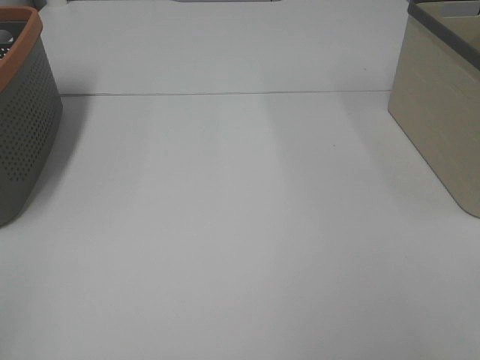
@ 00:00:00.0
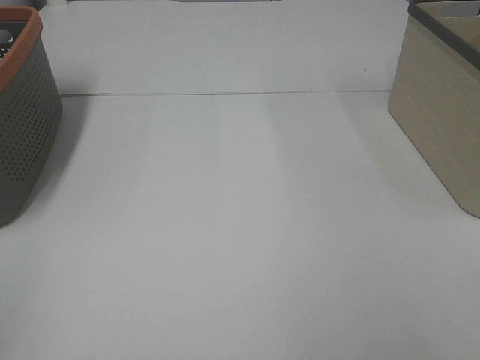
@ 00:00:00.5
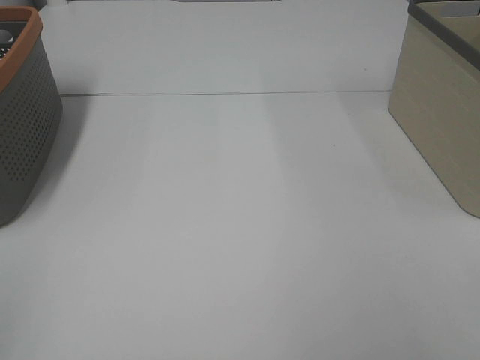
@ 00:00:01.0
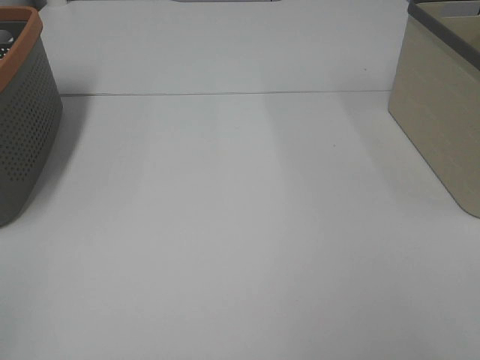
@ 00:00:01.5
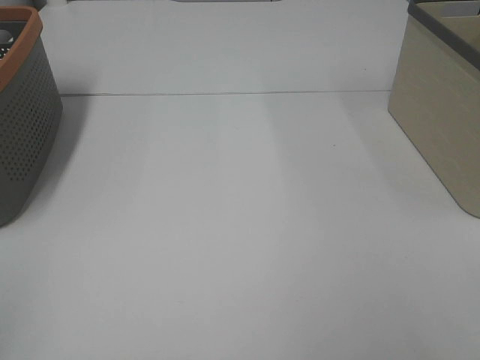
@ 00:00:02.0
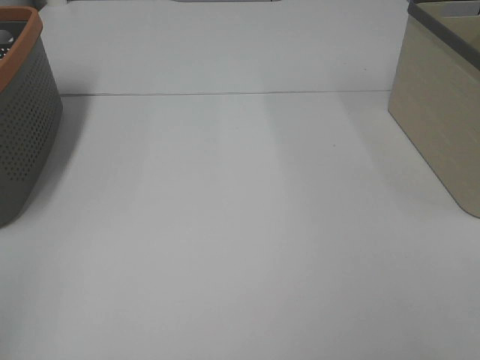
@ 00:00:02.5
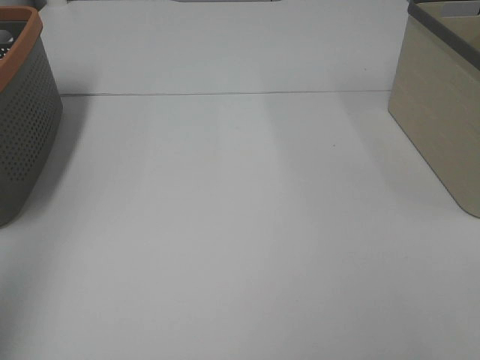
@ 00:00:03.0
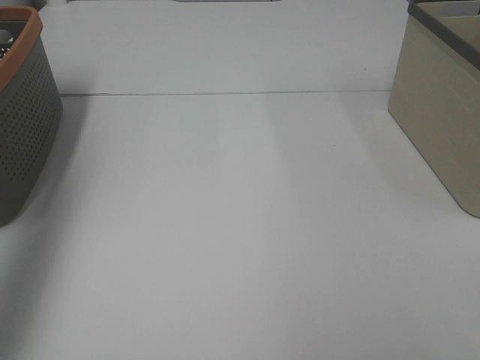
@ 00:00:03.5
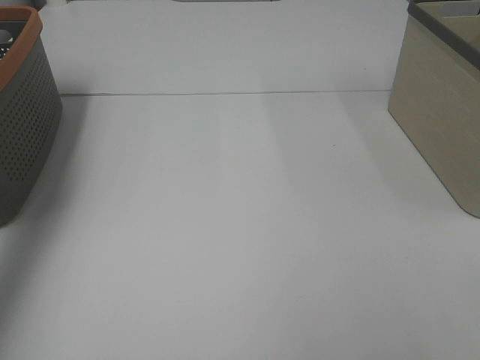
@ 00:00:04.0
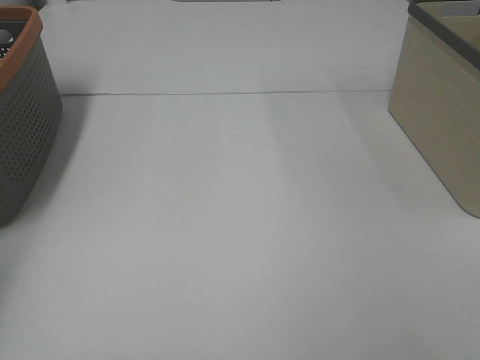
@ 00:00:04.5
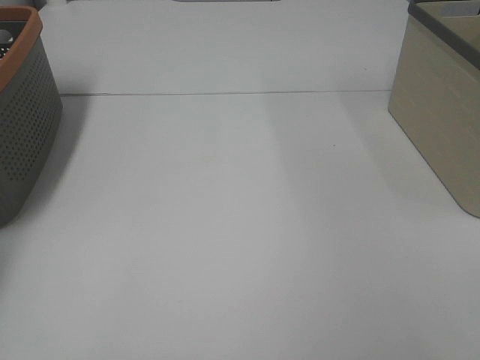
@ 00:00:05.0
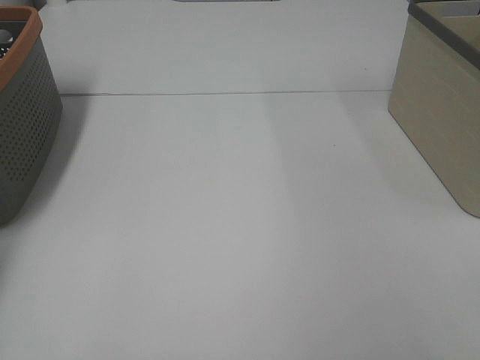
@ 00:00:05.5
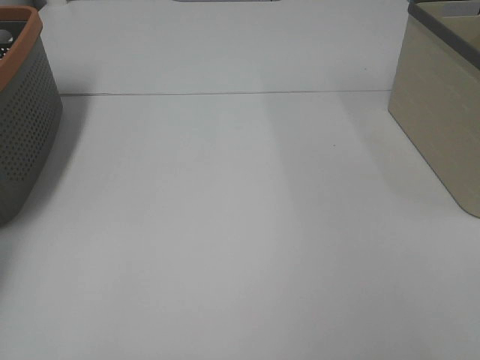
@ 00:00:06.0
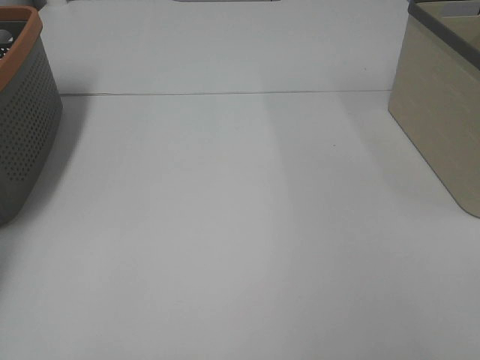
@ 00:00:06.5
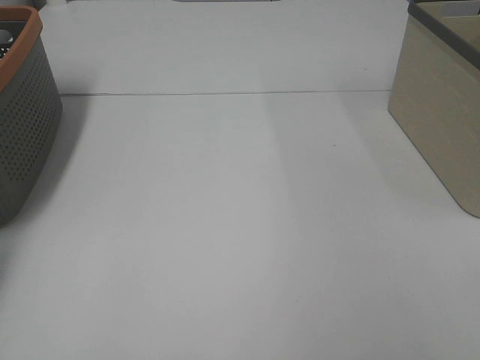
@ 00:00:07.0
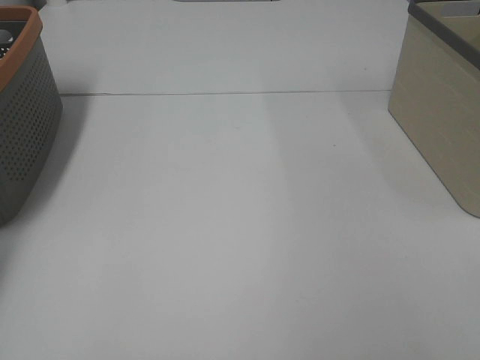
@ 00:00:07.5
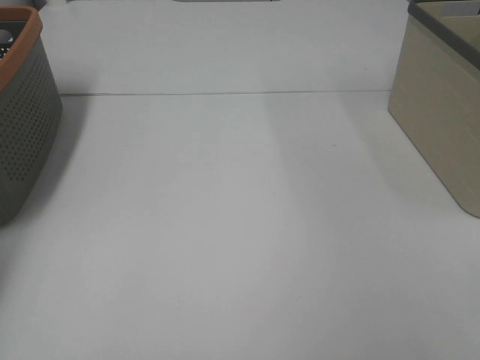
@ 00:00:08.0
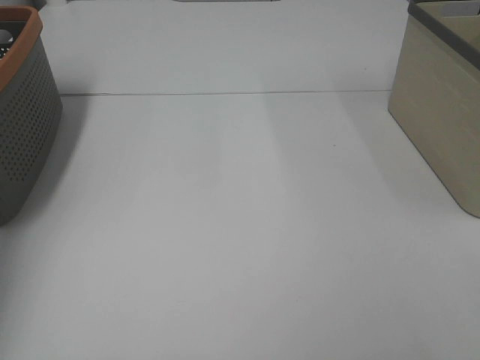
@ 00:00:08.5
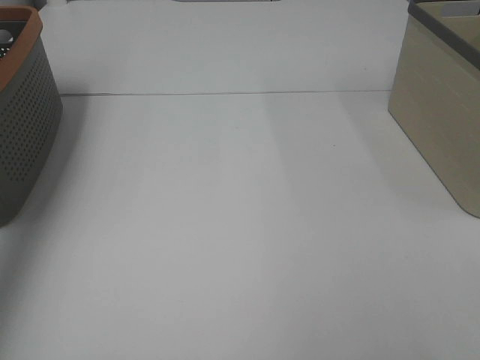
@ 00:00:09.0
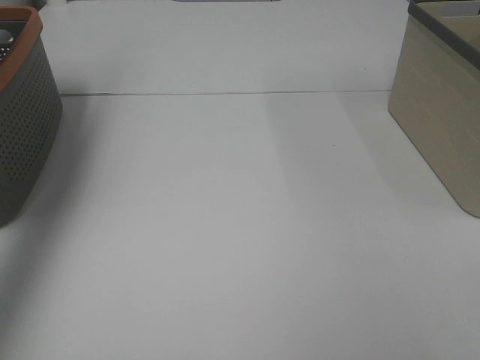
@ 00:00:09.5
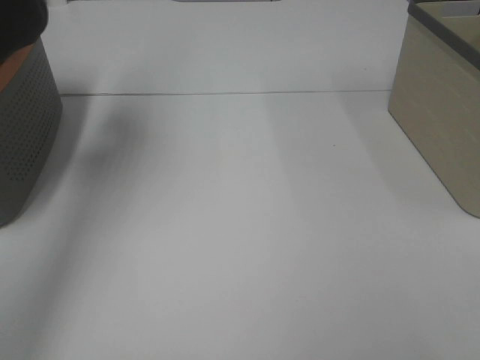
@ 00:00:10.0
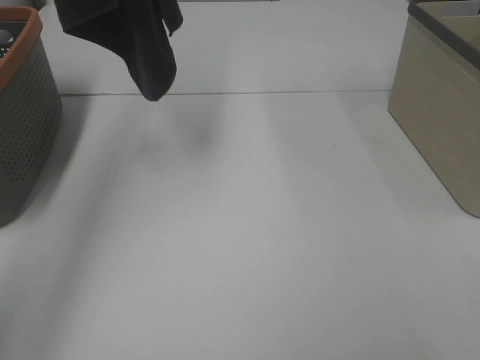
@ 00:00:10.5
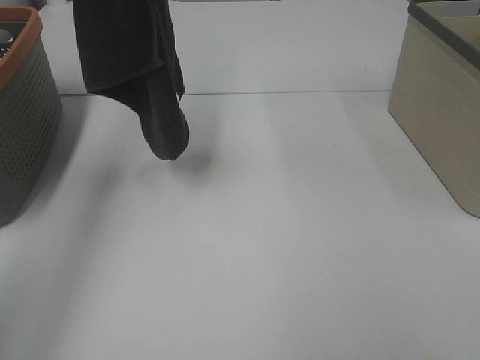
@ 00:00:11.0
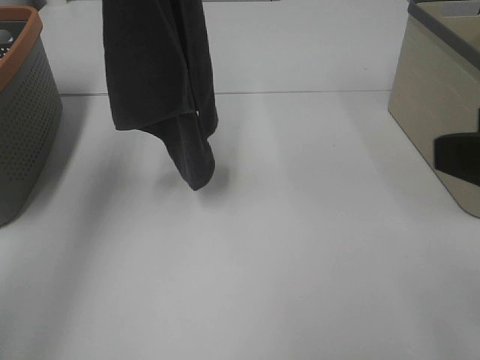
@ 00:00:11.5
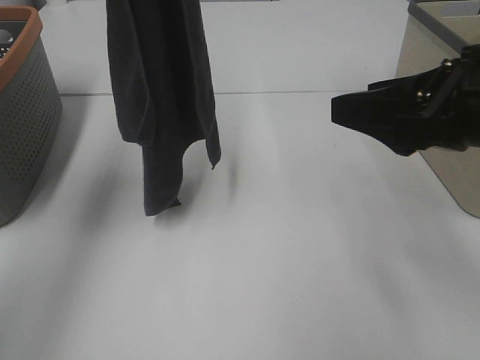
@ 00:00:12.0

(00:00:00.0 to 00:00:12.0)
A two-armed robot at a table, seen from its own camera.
Task of the whole recording: Remove the towel and place it.
00:00:00.0 - 00:00:02.0: Both grippers stay about where they are.
00:00:02.0 - 00:00:04.0: The left gripper heads forward, covering approximately 35 cm.
00:00:04.0 - 00:00:06.0: The left gripper heads downward, forward and to the left, covering roughly 25 cm.
00:00:08.0 - 00:00:10.0: The left gripper heads upward, to the right and backward, covering approximately 40 cm.
00:00:10.0 - 00:00:12.0: The right gripper is displaced forward and to the left by approximately 20 cm; the left gripper heads downward and to the right, covering about 15 cm.

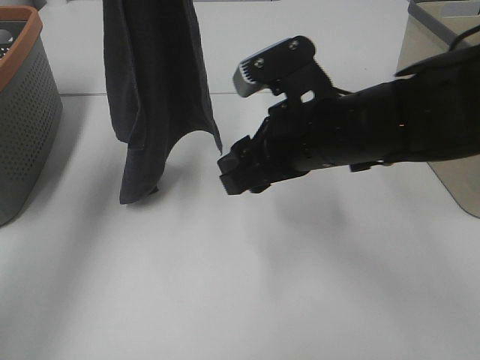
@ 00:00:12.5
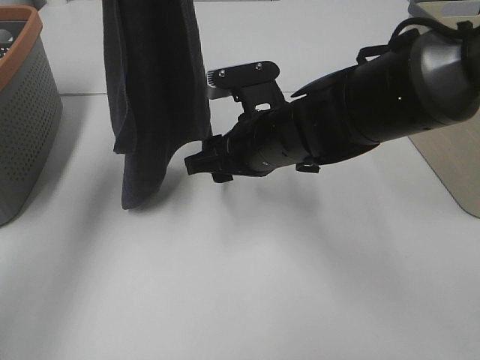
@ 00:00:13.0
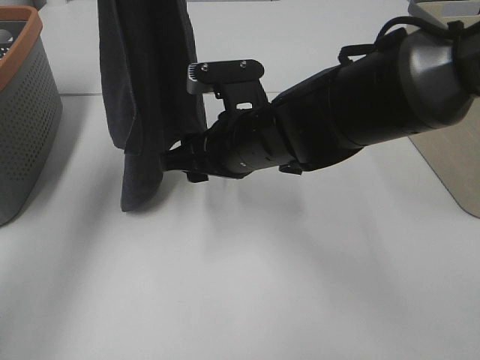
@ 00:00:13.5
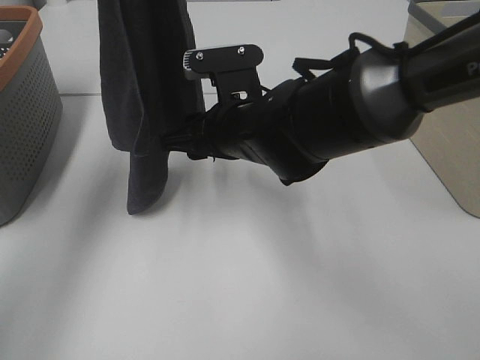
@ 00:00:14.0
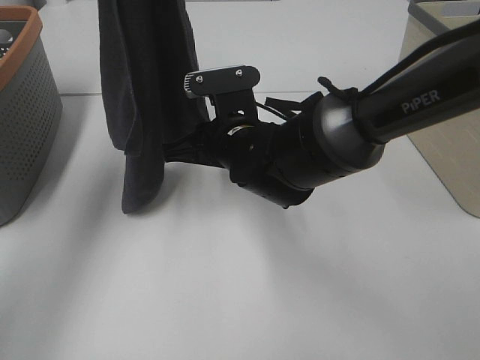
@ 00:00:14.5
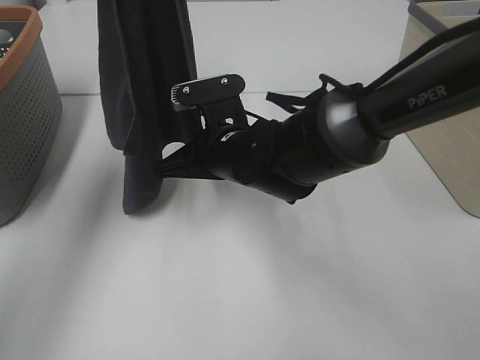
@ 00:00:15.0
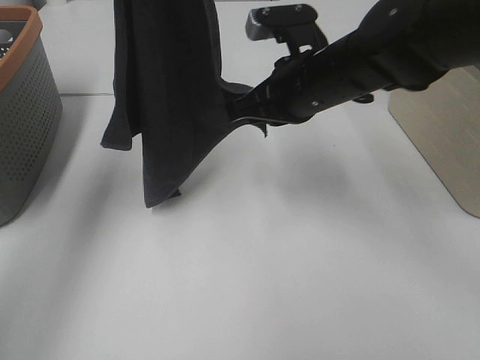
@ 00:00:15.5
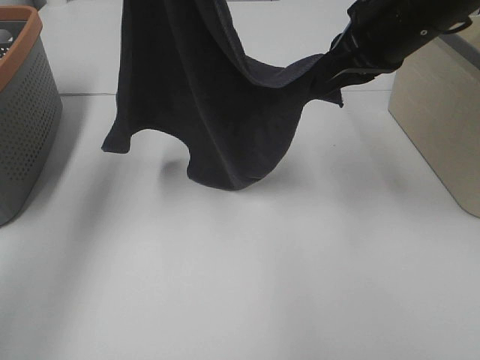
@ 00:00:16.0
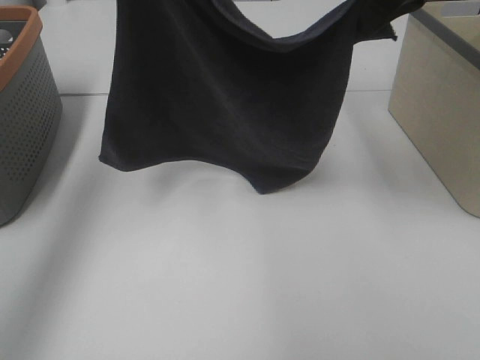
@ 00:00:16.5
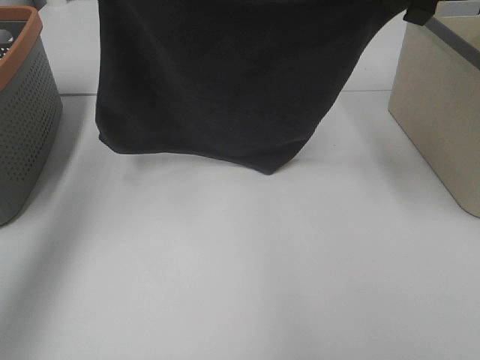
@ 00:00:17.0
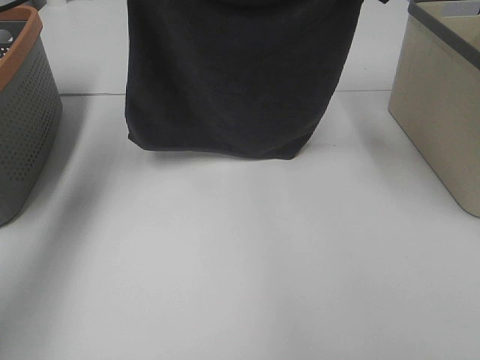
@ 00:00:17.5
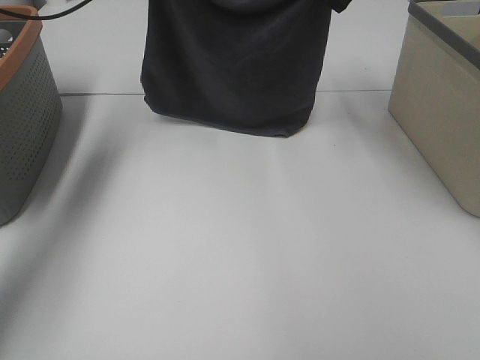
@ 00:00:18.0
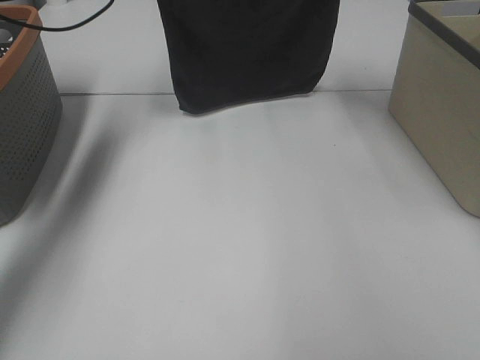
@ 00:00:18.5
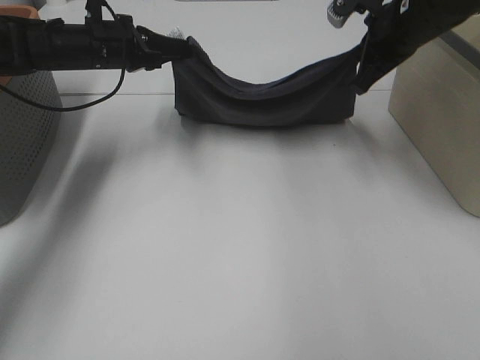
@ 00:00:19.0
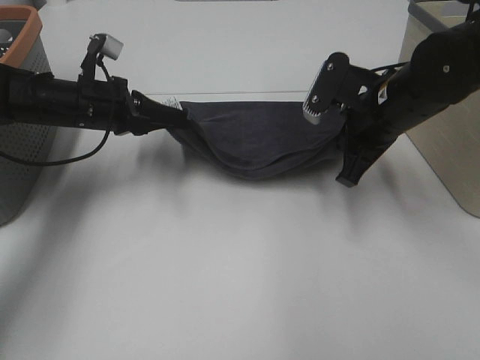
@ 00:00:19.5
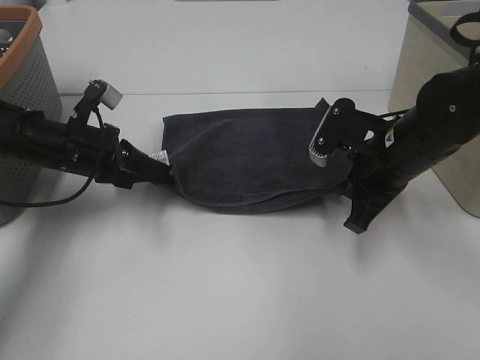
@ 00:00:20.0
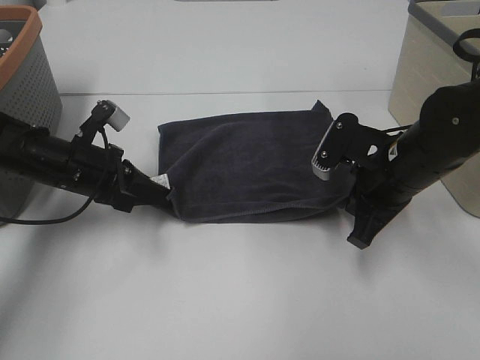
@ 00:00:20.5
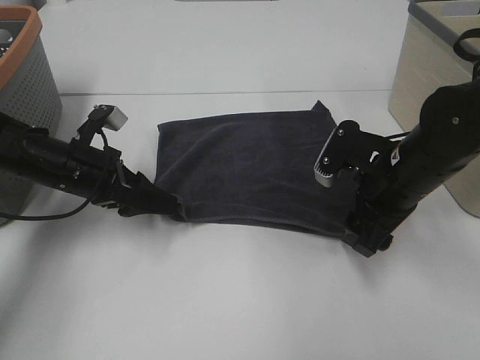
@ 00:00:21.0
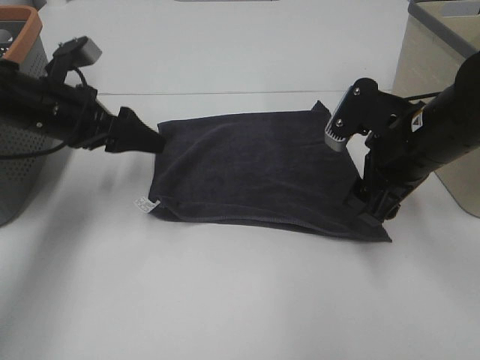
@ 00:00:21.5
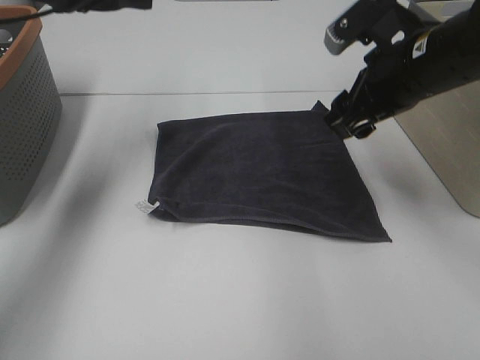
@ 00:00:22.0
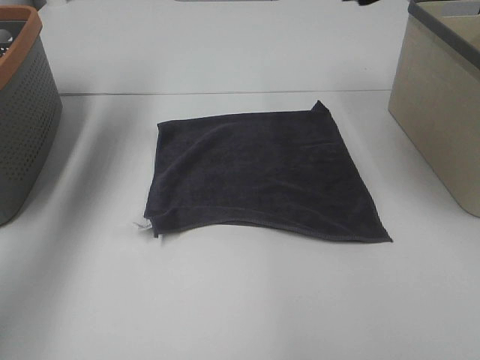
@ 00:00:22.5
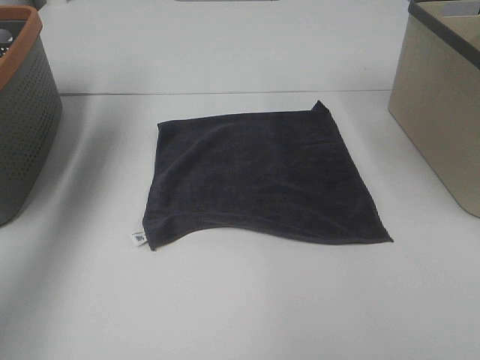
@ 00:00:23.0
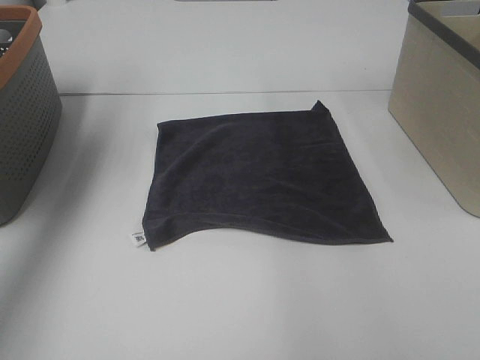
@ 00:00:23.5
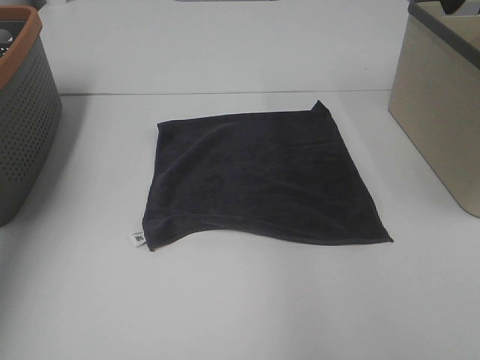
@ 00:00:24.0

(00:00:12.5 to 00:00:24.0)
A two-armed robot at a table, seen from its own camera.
Task of the whole recording: Remove the towel and place it.
Step, 00:00:14.0 - 00:00:16.5: Left hand: spread the grey towel flat on the table.
Step, 00:00:14.0 - 00:00:16.5: Right hand: spread the grey towel flat on the table.
00:00:12.5 - 00:00:14.5: The right gripper goes approximately 10 cm to the left, downward and forward, and closes up.
00:00:14.5 - 00:00:16.5: The left gripper moves downward, approximately 10 cm. The right gripper moves upward and to the right, some 30 cm, and closes up.
00:00:16.5 - 00:00:18.5: The left gripper is displaced forward and downward by approximately 25 cm; the right gripper moves forward, some 15 cm.
00:00:18.5 - 00:00:20.0: The grippers both shift backward and downward by some 25 cm.
00:00:20.0 - 00:00:22.0: The left gripper goes approximately 20 cm upward, and opens its fingers, while the right gripper shifts roughly 10 cm upward, and opens its fingers.
00:00:22.0 - 00:00:24.0: The left gripper is displaced to the left, upward and backward by about 20 cm; the right gripper heads upward and to the right, covering approximately 15 cm.

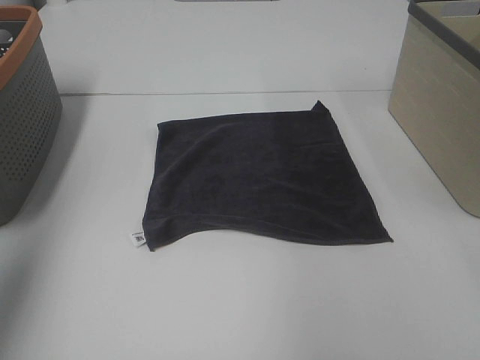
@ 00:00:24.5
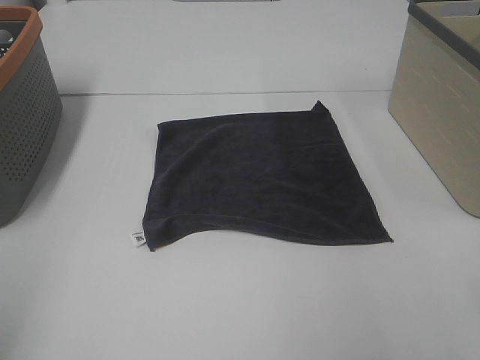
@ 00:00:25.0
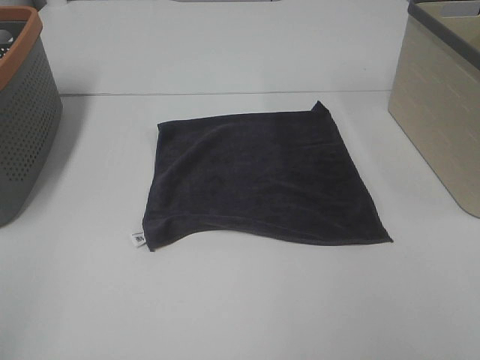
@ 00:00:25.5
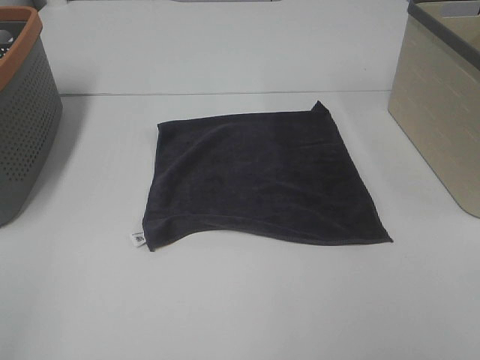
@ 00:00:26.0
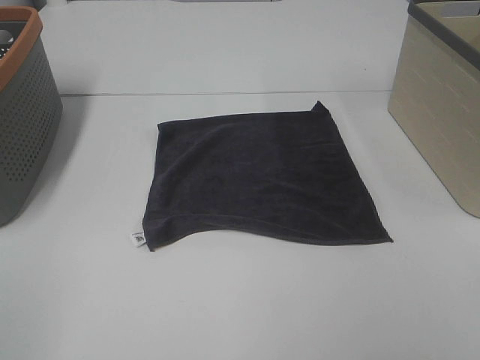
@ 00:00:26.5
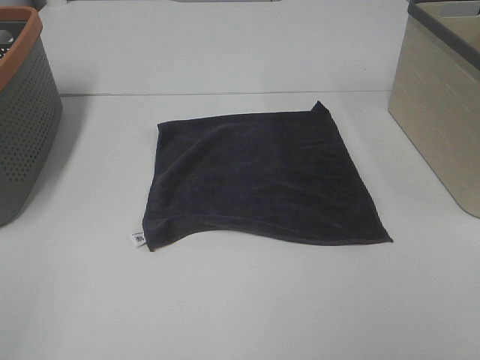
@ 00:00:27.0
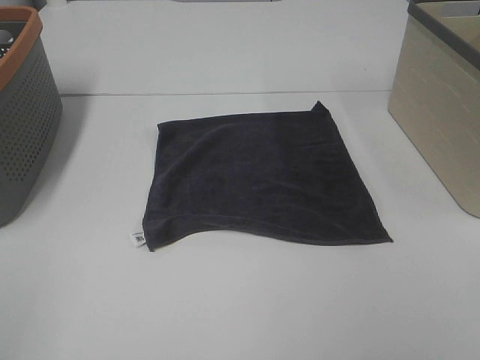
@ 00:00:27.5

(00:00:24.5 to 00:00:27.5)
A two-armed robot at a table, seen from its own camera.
Task of the whole recording: Remove the towel and place it.
00:00:24.5 - 00:00:26.0: The left gripper moves backward and downward, about 20 cm.
